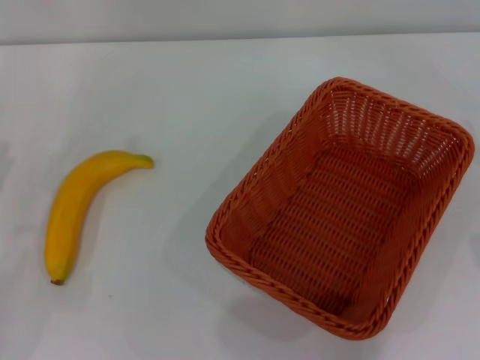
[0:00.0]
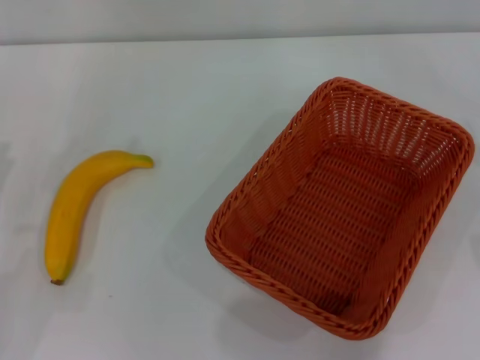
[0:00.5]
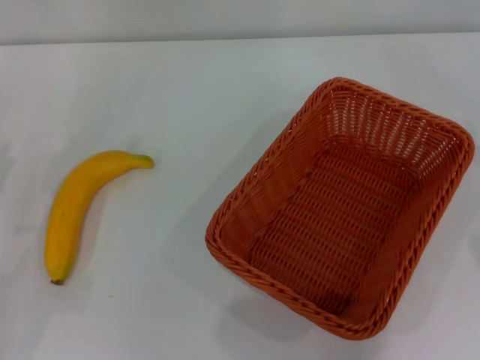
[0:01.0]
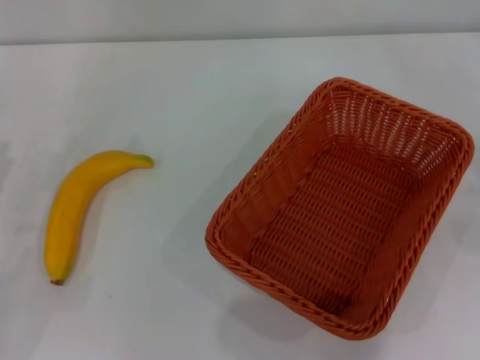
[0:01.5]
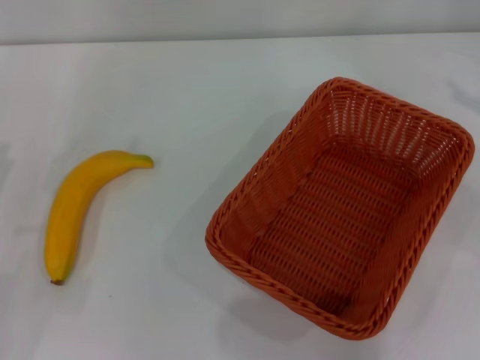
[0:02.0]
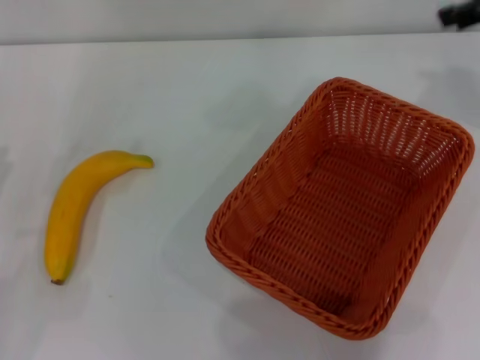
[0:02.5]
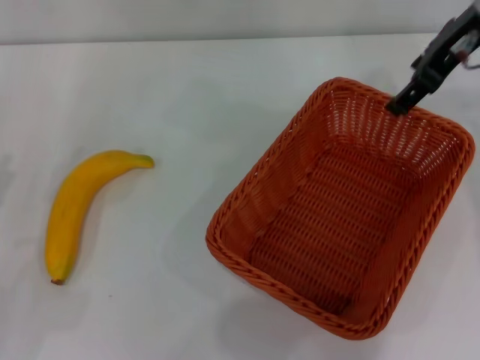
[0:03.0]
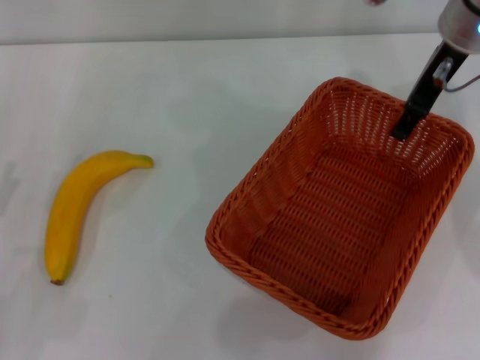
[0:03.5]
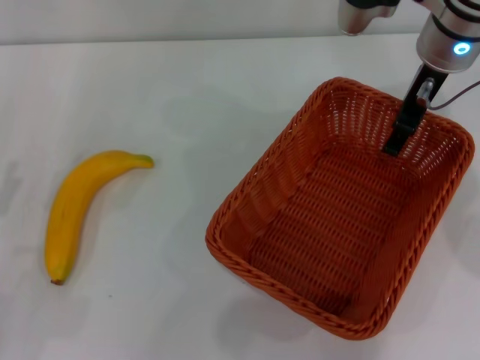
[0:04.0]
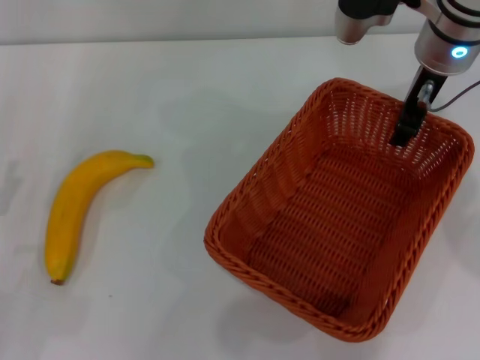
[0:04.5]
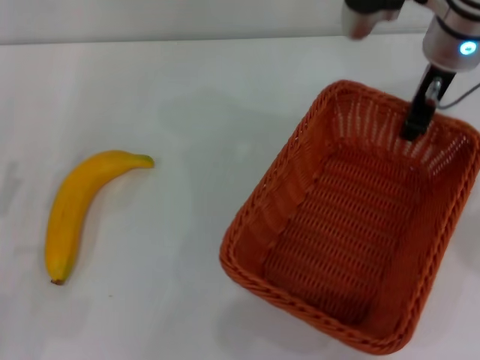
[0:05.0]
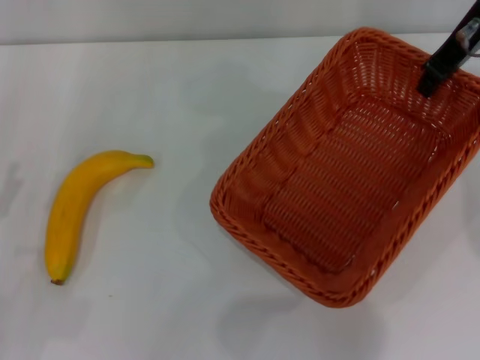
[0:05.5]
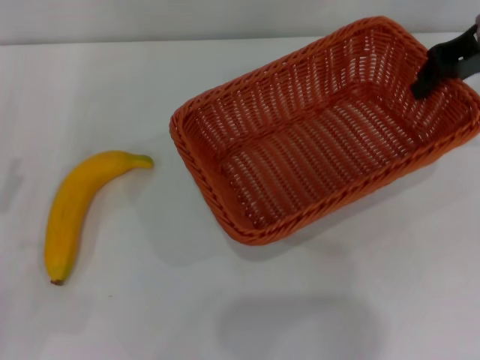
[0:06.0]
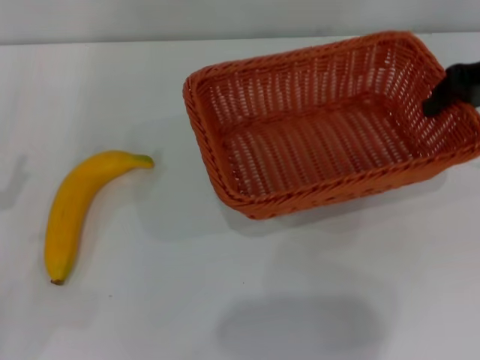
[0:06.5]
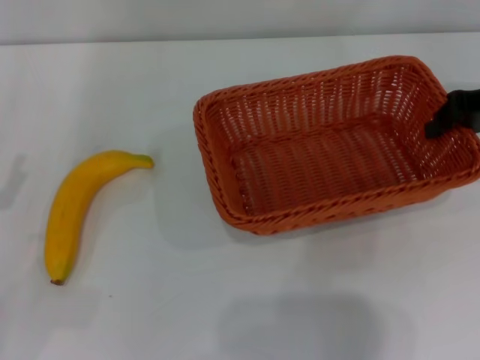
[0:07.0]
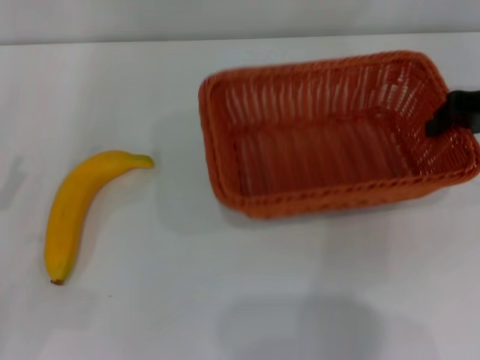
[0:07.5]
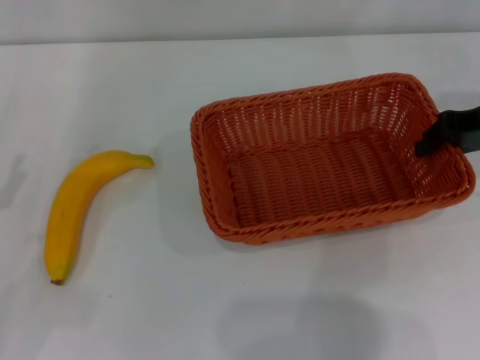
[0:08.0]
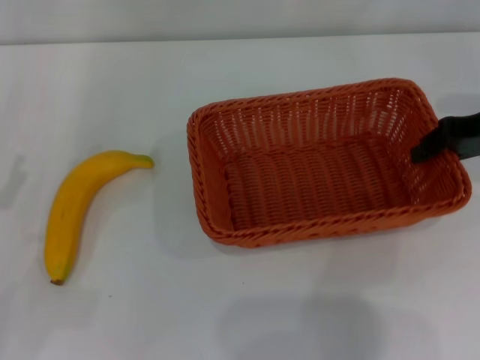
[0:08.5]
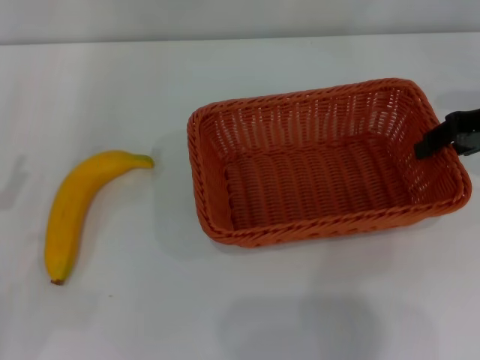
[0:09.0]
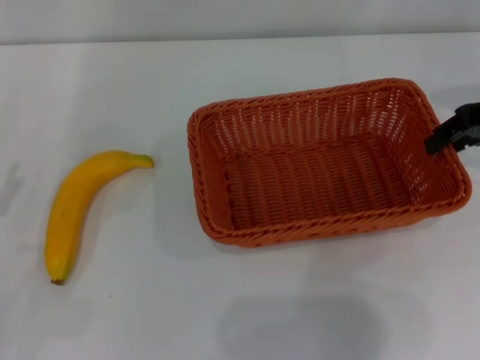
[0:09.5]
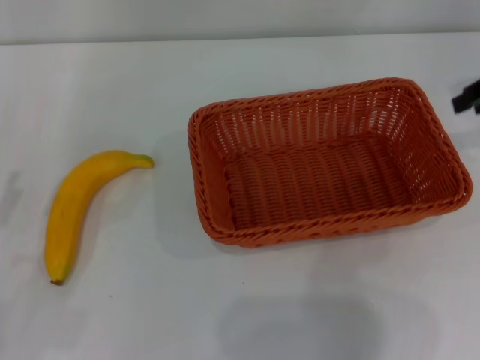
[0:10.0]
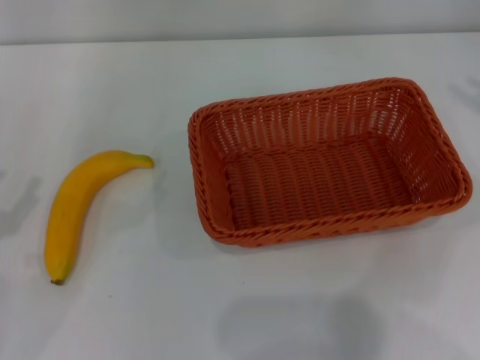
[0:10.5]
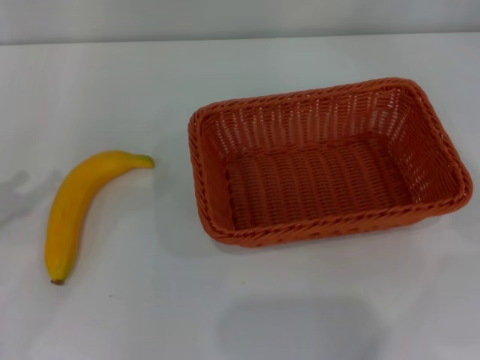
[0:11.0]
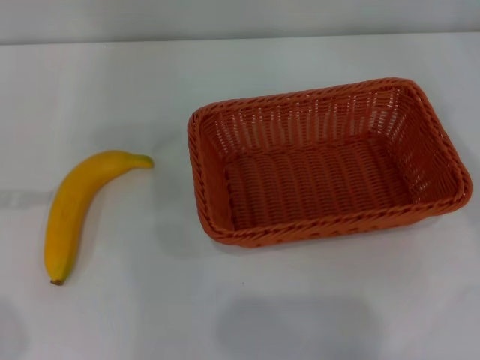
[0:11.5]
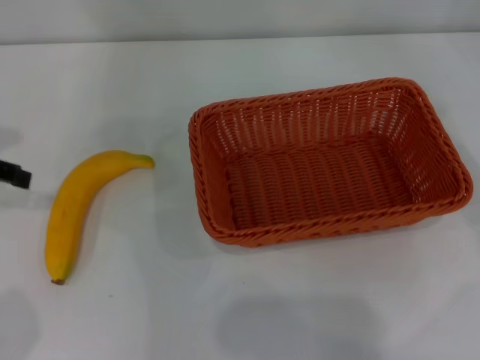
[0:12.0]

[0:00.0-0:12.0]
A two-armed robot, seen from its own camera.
Step, 0:00.0 to 0:05.5: Pick up the light basket with the right gripper.
Step, 0:06.5 to 0:09.5: Place the light basket in the center of view with the right gripper.
0:02.0 to 0:04.0: The right gripper shifts some 25 cm to the left.
0:04.0 to 0:06.0: The right gripper heads to the right, covering roughly 10 cm, and closes.
0:06.0 to 0:08.0: The right gripper travels downward by some 5 cm.
0:08.0 to 0:10.0: The right gripper travels upward by some 5 cm.

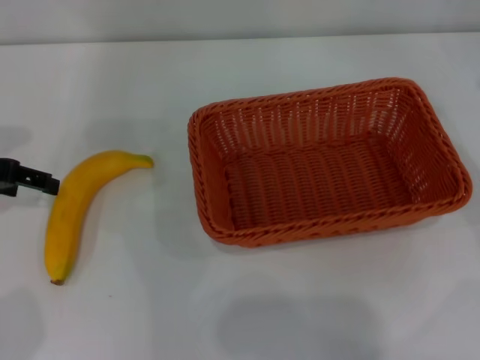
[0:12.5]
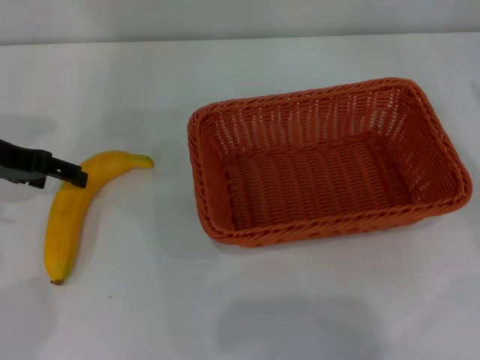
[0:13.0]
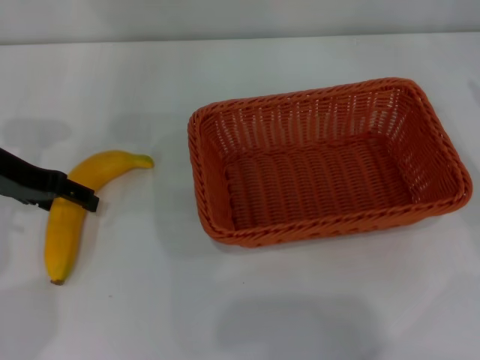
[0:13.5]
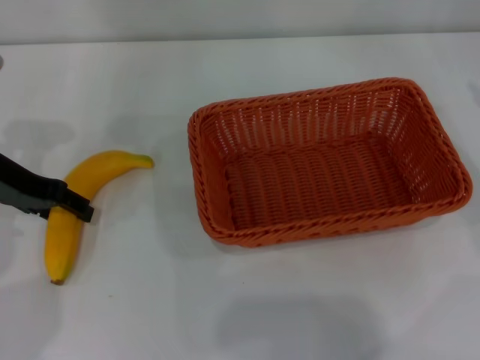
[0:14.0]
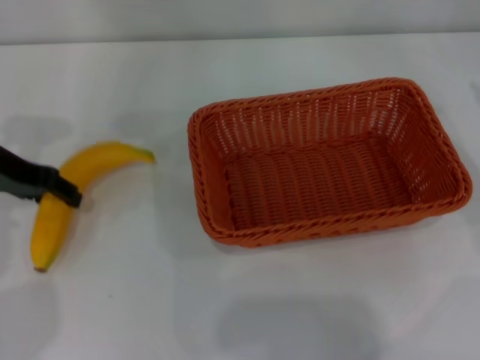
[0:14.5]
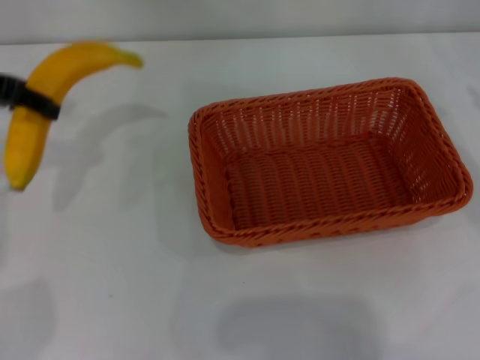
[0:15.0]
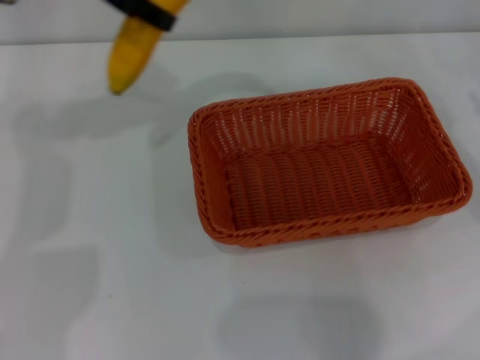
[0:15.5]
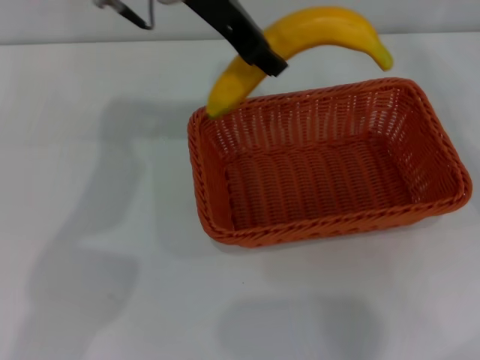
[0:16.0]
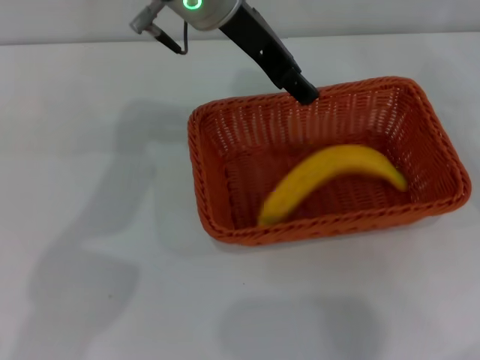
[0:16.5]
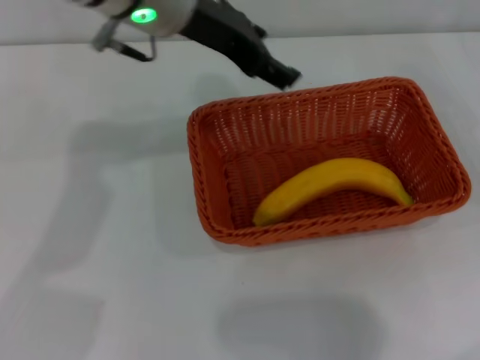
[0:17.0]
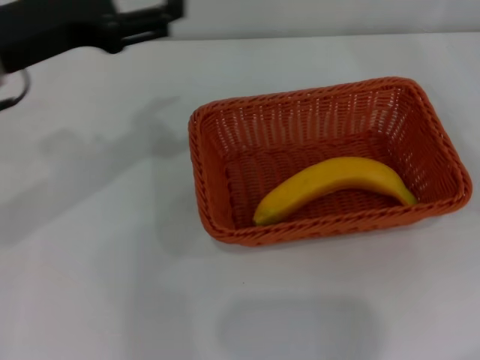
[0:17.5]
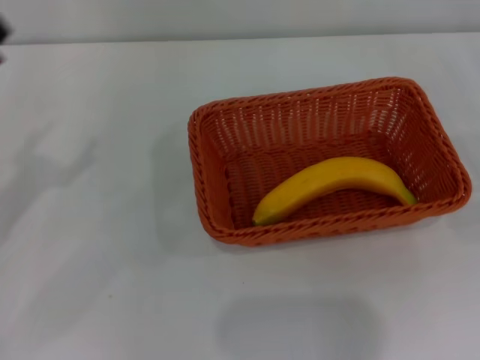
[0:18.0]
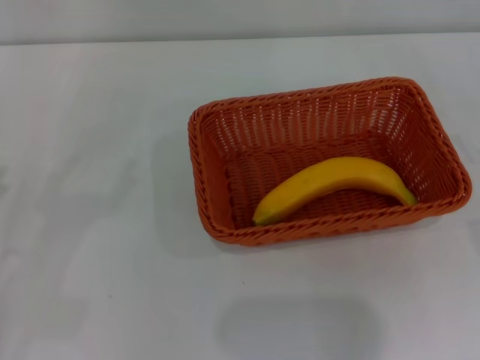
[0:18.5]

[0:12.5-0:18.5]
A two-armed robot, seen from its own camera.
Step, 0:12.5 to 0:15.0: Pick up the banana with the left gripper.
Step, 0:15.5 to 0:16.5: Place the banana into the light basket with the left gripper.
0:12.5 to 0:14.5: The left gripper changes place by approximately 5 cm, and closes its fingers.
0:14.5 to 0:16.5: The left gripper goes approximately 25 cm to the right and upward; the right gripper shifts by about 5 cm, and opens its fingers.
0:16.5 to 0:18.5: The left gripper moves to the left, backward and downward, roughly 40 cm, and opens up. The right gripper heads downward, covering some 10 cm.

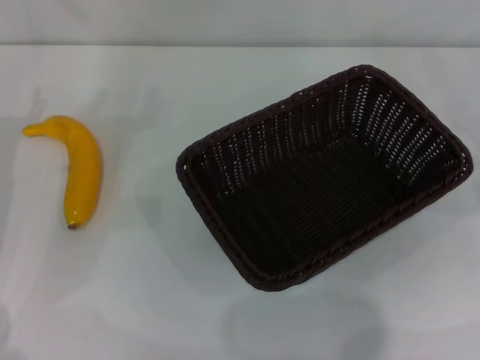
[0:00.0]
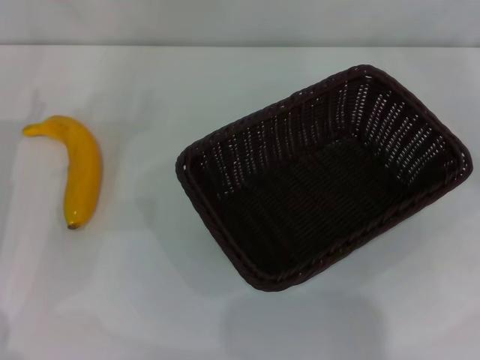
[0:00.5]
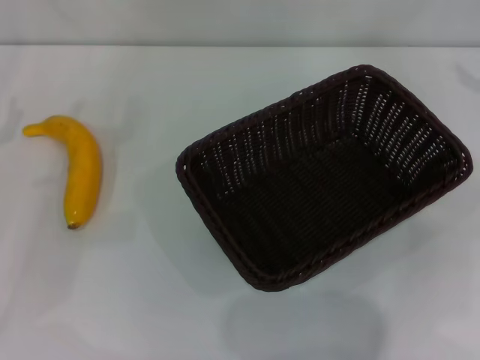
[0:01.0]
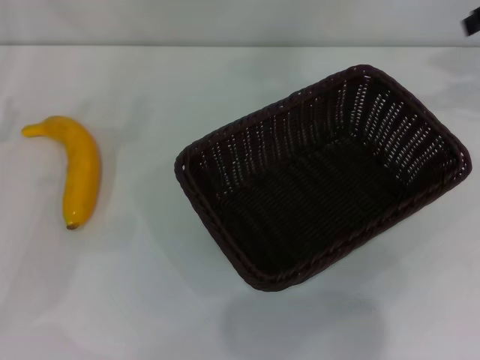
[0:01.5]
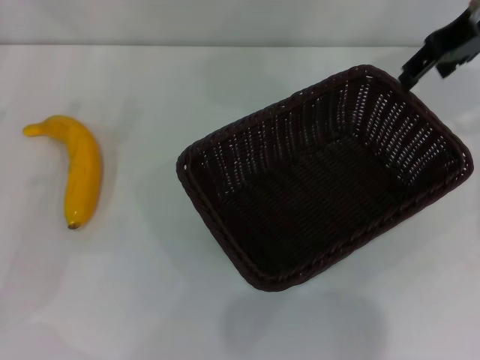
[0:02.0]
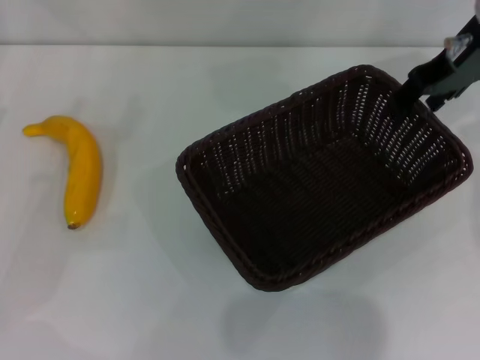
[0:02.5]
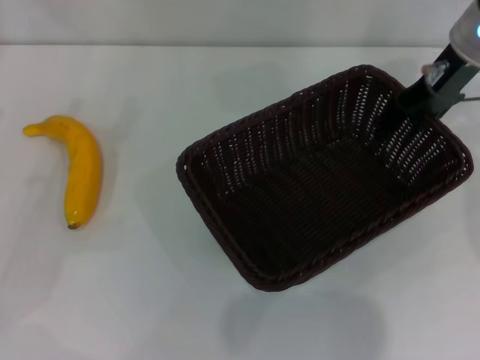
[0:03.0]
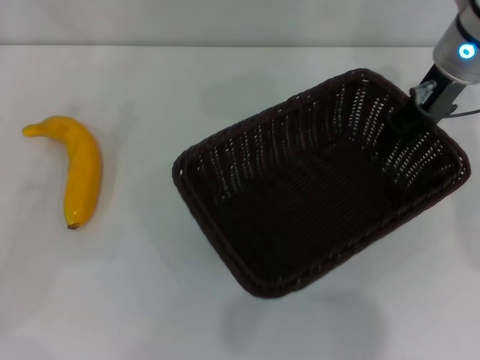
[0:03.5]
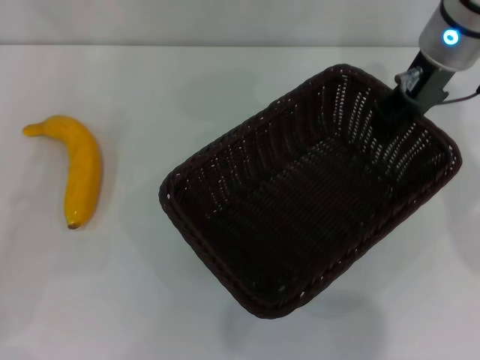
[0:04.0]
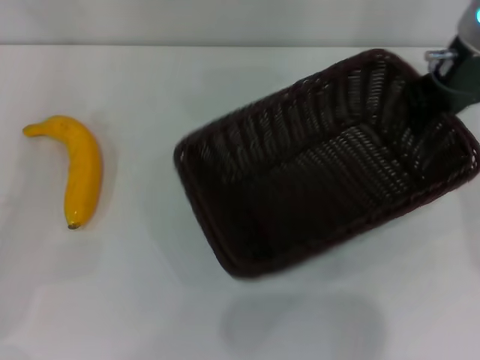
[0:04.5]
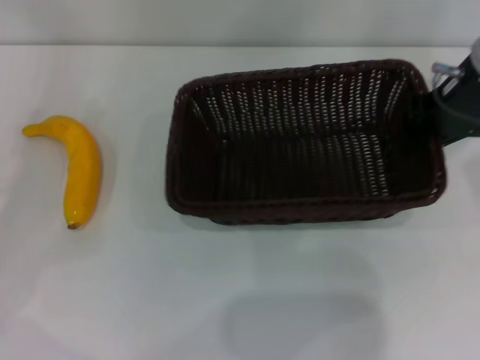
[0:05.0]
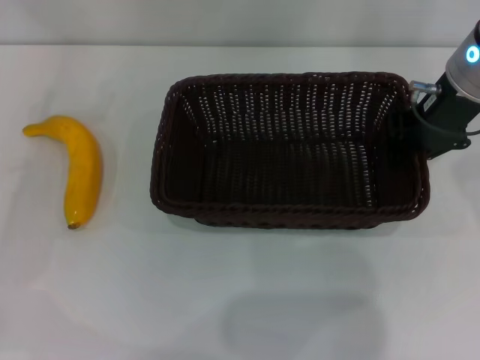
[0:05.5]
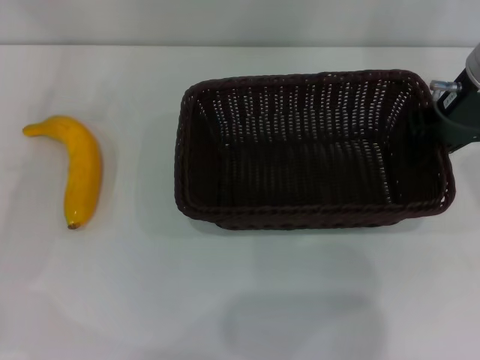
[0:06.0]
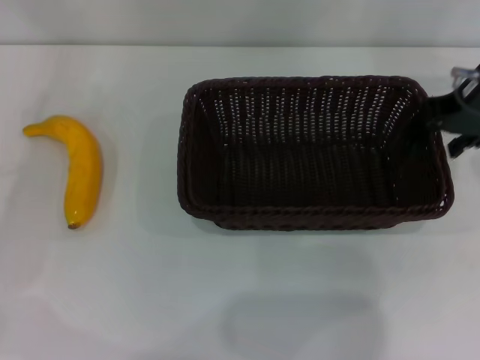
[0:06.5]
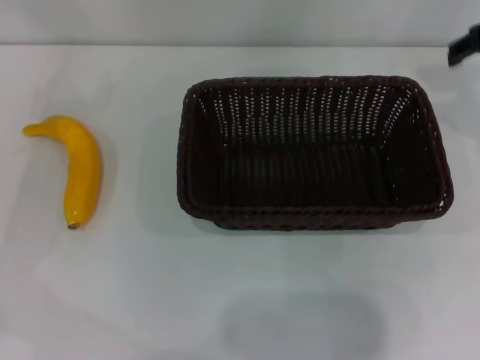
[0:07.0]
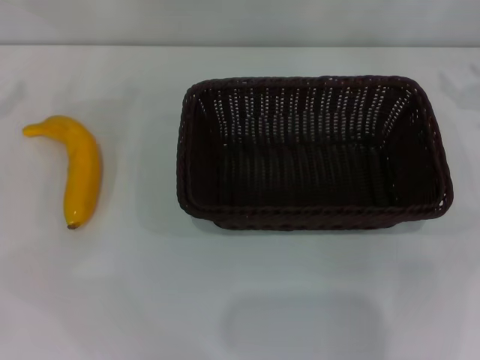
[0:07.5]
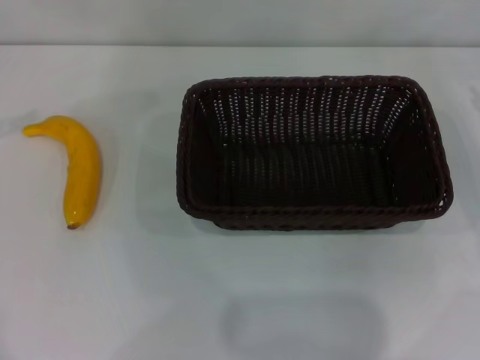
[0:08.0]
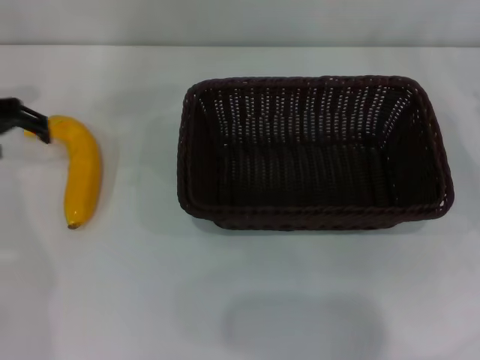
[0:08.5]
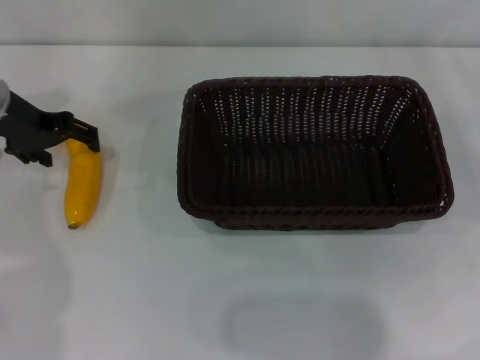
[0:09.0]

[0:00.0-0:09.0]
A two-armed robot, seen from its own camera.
Step, 0:00.0 to 0:04.0: Pick up the dark basket with the right gripper.
Step, 0:05.0 to 0:06.5: Place the dark basket in the center of view with the right gripper.
0:00.0 to 0:02.0: The right gripper moves upward, to the left and forward, roughly 30 cm.
0:02.0 to 0:04.5: The right gripper closes its fingers.
0:04.5 to 0:07.0: The right gripper shifts some 5 cm to the right, and opens its fingers. The left gripper moves forward, roughly 10 cm.
0:07.0 to 0:09.0: The right gripper heads downward, to the right and backward, covering about 20 cm. The left gripper shifts roughly 15 cm to the right and forward.
